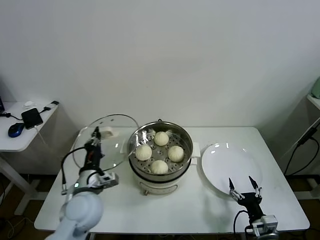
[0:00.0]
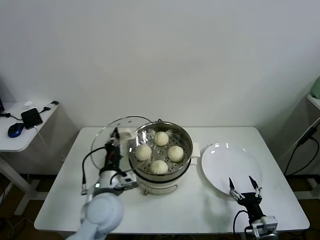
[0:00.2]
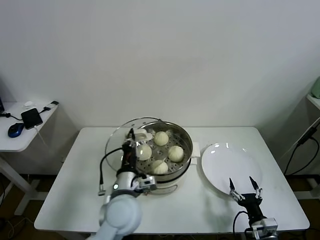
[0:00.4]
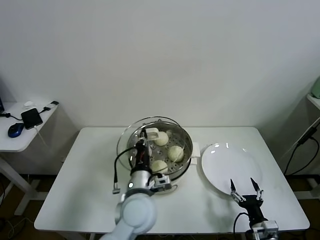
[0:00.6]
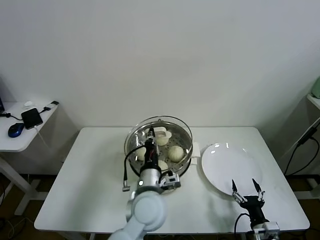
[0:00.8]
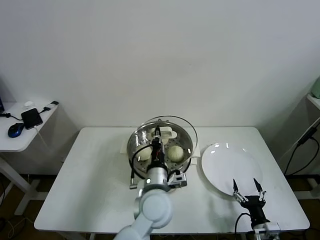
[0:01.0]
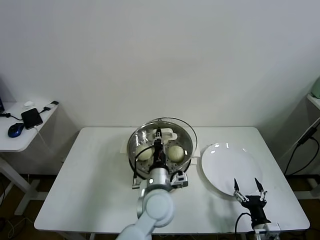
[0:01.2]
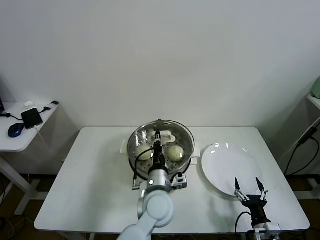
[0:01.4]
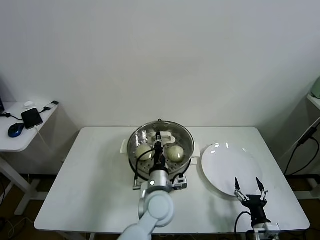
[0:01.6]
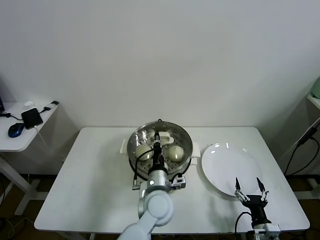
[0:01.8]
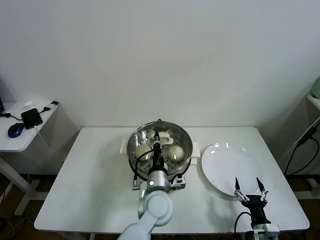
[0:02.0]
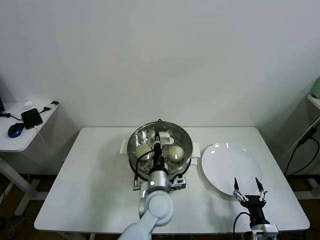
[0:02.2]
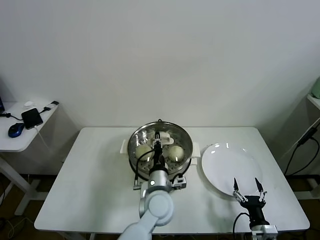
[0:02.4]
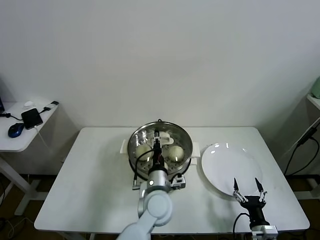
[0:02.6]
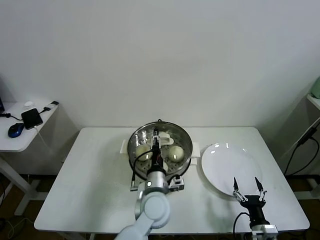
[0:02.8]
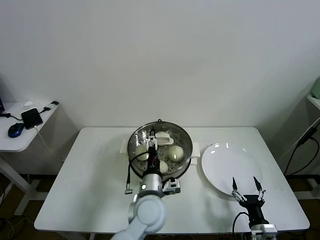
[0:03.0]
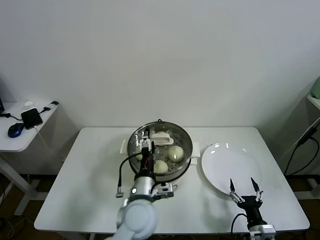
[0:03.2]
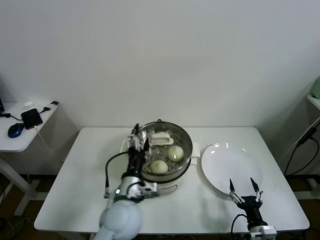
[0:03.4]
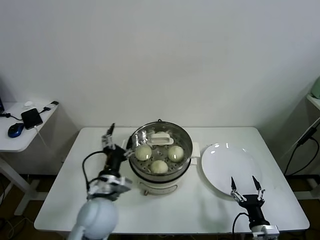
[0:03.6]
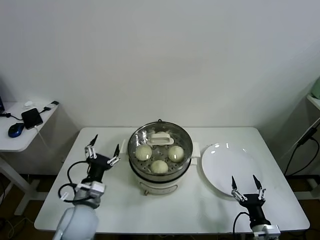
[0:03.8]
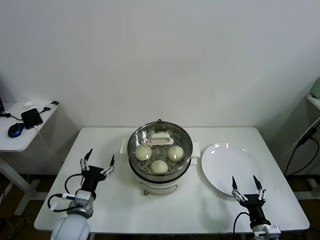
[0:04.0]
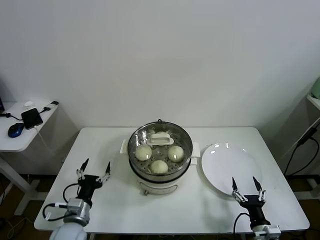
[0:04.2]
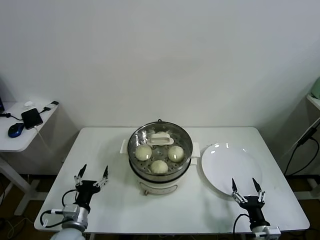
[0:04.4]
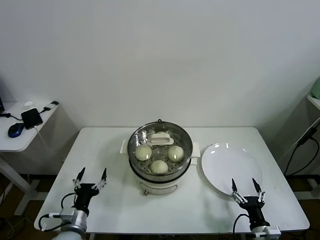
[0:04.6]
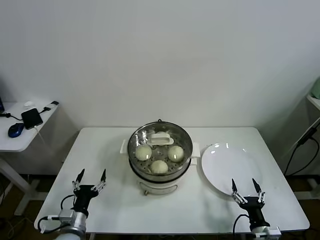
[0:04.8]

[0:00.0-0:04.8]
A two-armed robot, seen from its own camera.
Task of the whole recording: take steamed baozi put them in steamer.
Step, 0:00.0 to 0:03.0: Place the pot lid on the steamer with left gripper.
0:00.0 to 0:01.6: The left gripper is displaced to the right by about 20 cm.
0:01.6 to 0:03.2: The left gripper opens its fingers.
0:03.2 to 0:04.8: The left gripper shifts roughly 25 cm to the left and downward.

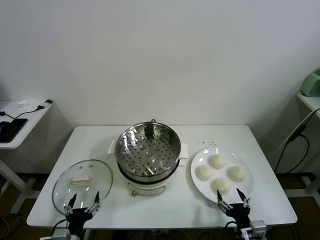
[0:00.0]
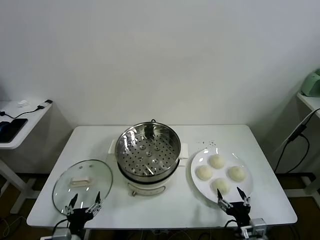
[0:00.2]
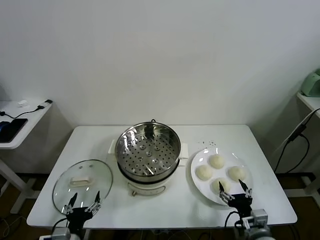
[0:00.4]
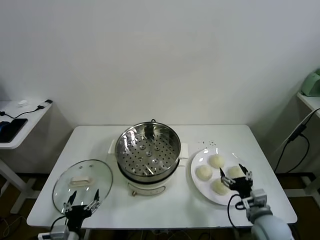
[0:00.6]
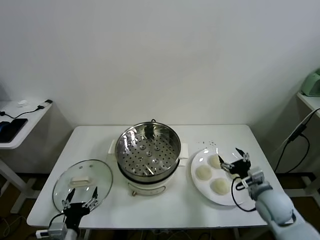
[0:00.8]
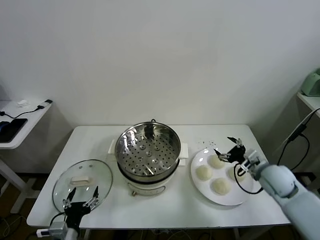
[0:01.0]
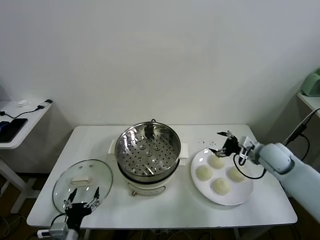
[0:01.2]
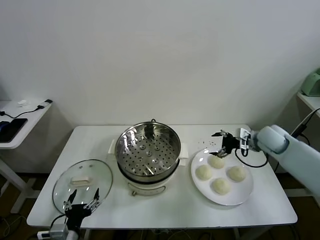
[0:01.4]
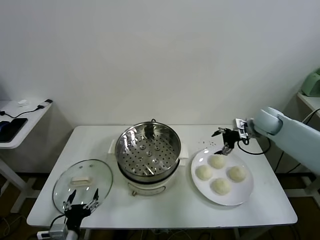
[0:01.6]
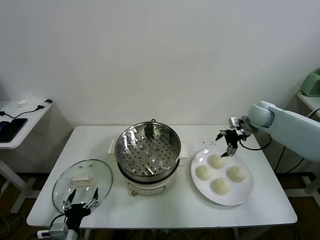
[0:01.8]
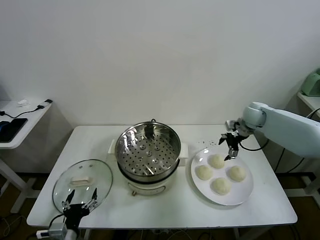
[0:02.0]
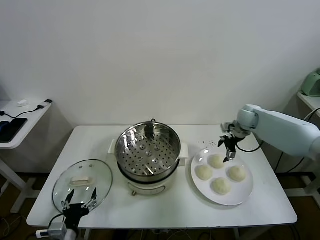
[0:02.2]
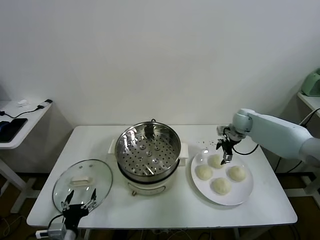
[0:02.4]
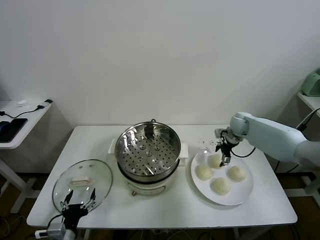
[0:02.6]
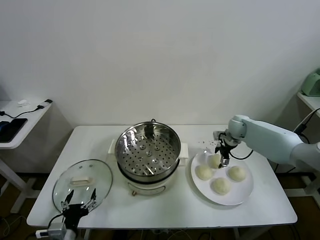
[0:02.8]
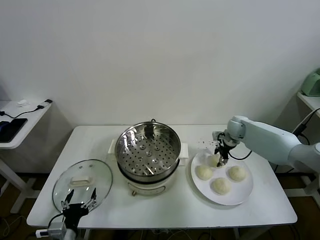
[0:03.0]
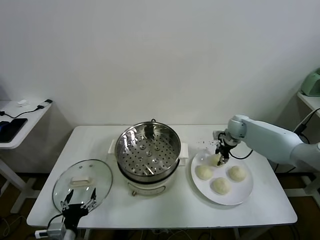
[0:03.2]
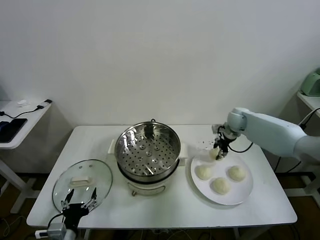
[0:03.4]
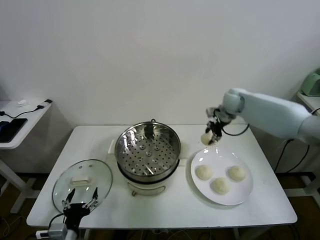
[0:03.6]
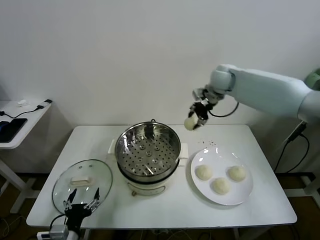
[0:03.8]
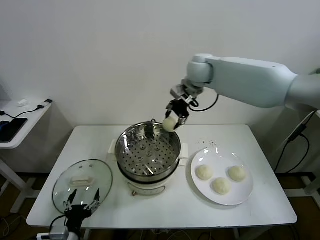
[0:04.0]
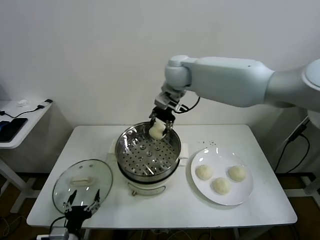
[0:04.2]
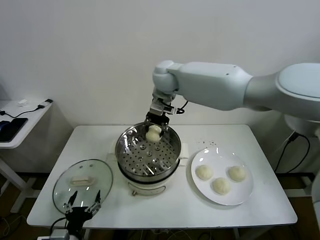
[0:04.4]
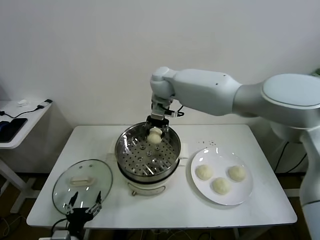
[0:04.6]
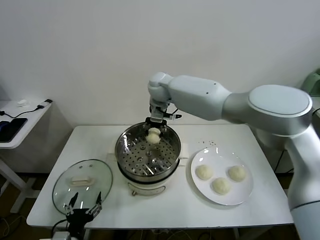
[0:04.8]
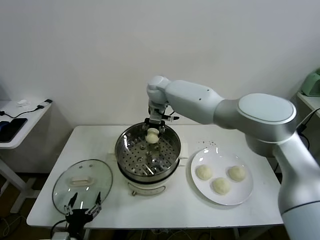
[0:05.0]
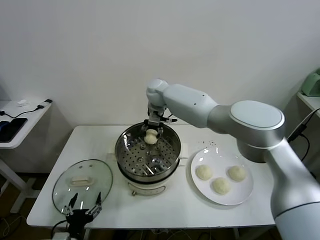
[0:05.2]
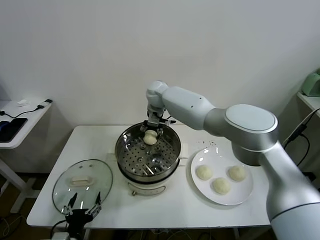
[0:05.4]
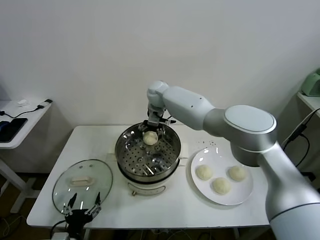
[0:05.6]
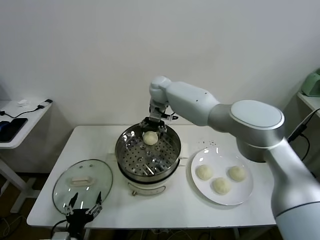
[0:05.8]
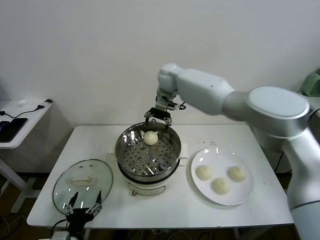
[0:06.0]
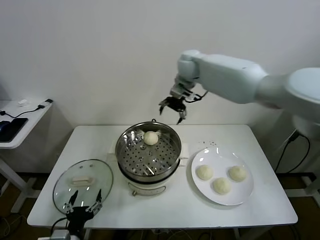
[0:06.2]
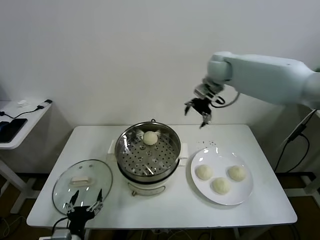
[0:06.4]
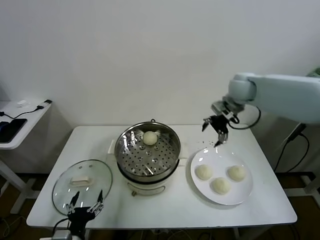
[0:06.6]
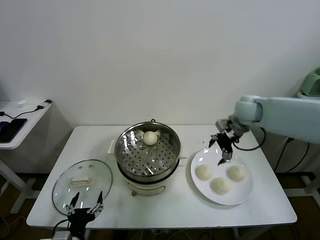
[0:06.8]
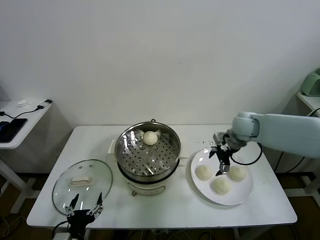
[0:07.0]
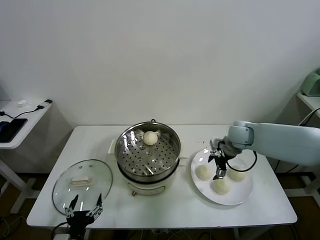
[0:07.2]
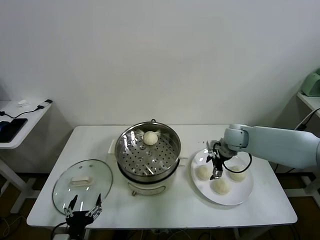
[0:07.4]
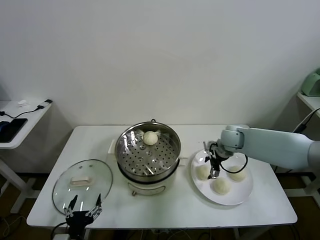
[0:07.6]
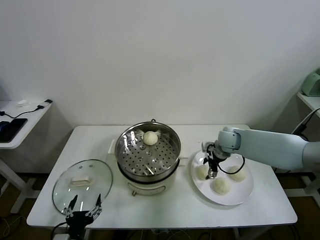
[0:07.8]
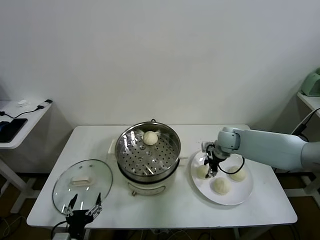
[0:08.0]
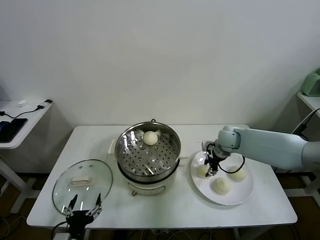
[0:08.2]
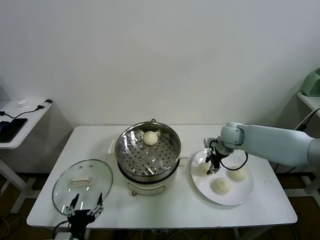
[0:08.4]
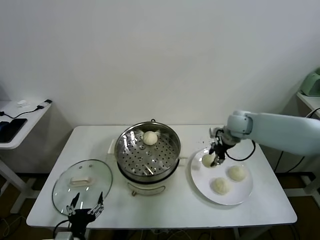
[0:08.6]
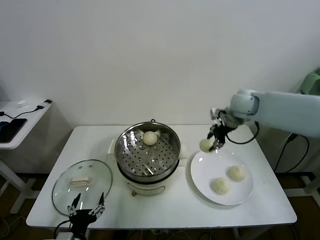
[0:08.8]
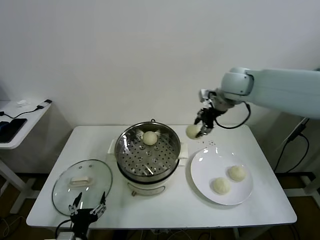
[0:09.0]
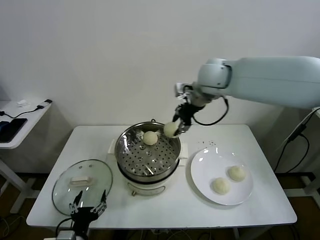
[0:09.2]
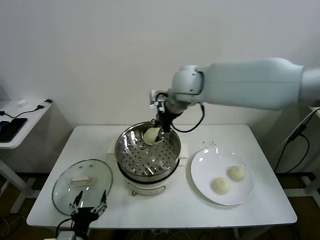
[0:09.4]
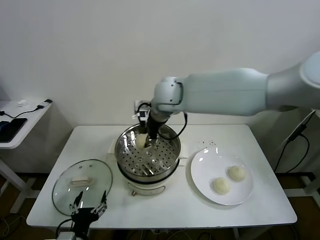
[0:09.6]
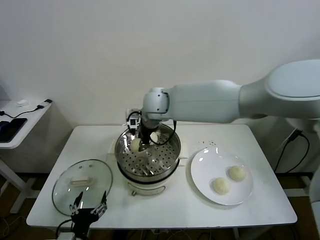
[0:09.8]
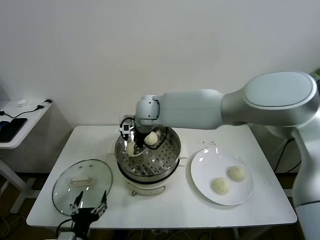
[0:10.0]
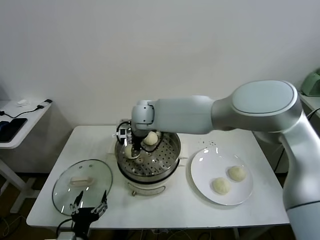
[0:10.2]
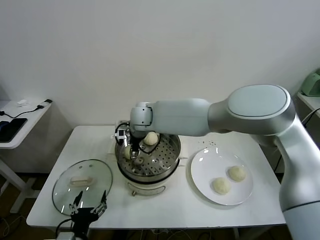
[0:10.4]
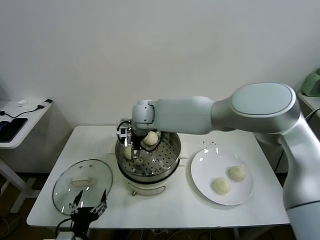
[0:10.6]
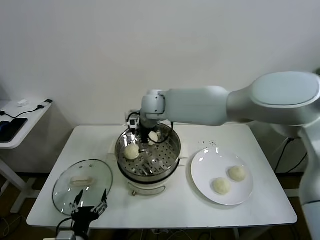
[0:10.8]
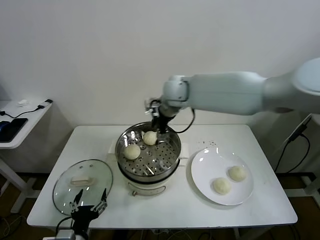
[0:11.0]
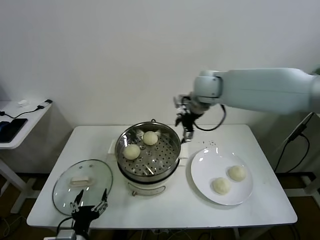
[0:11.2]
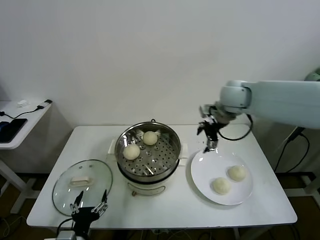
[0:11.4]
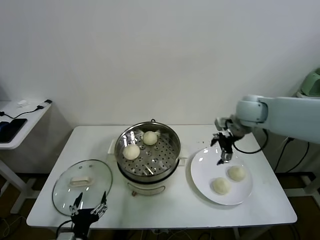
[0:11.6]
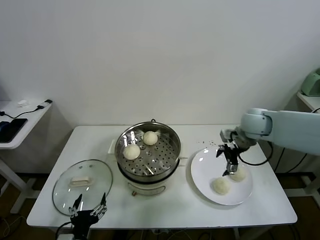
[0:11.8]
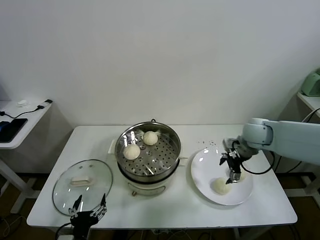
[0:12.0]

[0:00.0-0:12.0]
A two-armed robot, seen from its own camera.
Task of the whole recording: take steamed baozi put them in steamer.
Step, 0:00.0 to 0:02.8: Grasp the baozi in the plate with right gripper.
Step, 0:03.2 to 0:05.4: Place the baozi on the steamer with right gripper.
Step, 0:05.6 to 0:07.8: Grasp the baozi in the plate with right gripper.
Step, 0:08.0 to 0:10.4: Place the baozi on the steamer with right gripper.
0:01.6 to 0:03.0: The right gripper heads downward, covering approximately 10 cm, and closes.
0:03.0 to 0:04.4: The right gripper is displaced to the left and upward by roughly 40 cm.
0:04.4 to 0:06.0: The right gripper heads to the right and forward, covering some 10 cm, reaches approximately 10 cm downward, then returns, and opens up.
0:06.0 to 0:07.6: The right gripper heads downward, to the right and backward, covering about 35 cm.
0:07.6 to 0:09.0: The right gripper heads upward, covering roughly 25 cm, and closes.
0:09.0 to 0:10.4: The right gripper heads to the left and downward, covering roughly 30 cm, and opens up.
0:10.4 to 0:12.0: The right gripper heads to the right, covering roughly 40 cm.

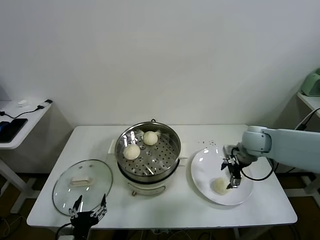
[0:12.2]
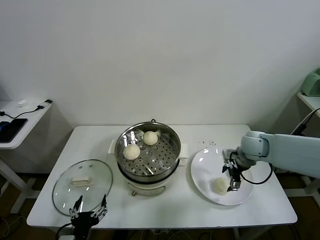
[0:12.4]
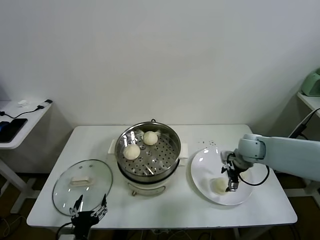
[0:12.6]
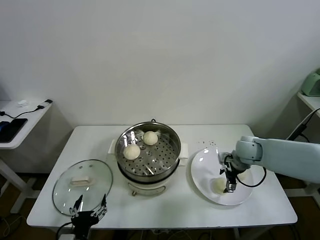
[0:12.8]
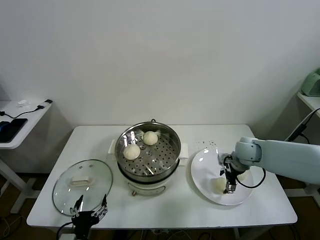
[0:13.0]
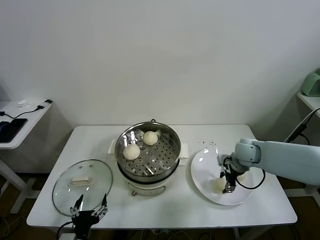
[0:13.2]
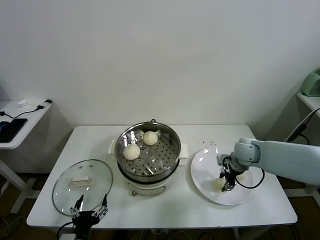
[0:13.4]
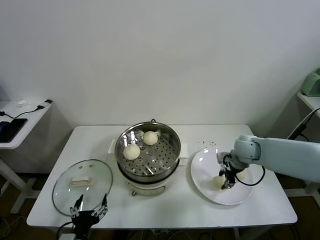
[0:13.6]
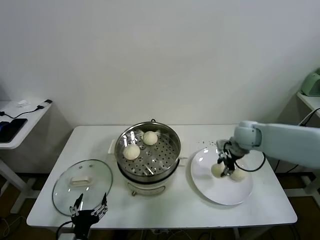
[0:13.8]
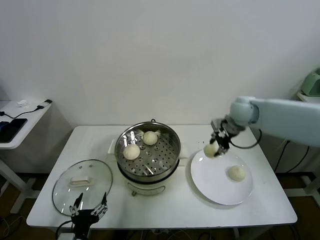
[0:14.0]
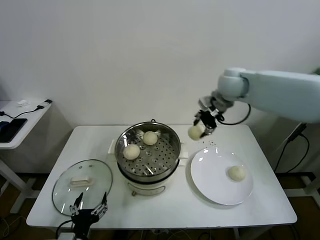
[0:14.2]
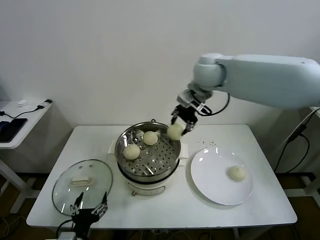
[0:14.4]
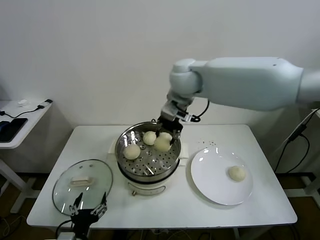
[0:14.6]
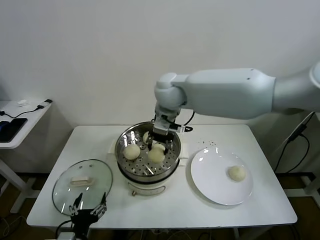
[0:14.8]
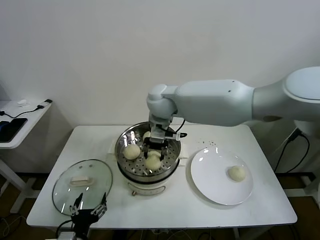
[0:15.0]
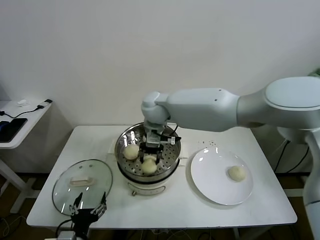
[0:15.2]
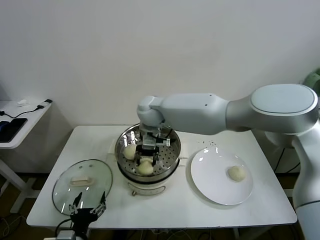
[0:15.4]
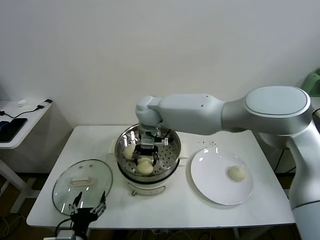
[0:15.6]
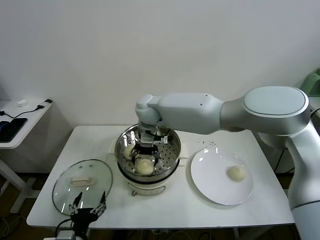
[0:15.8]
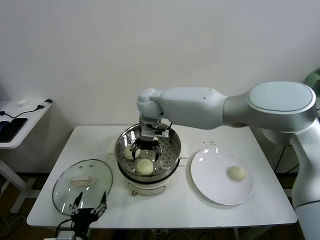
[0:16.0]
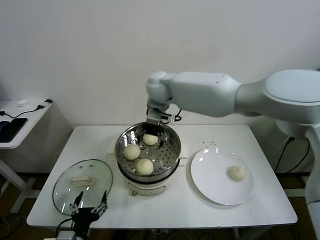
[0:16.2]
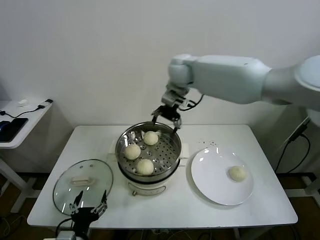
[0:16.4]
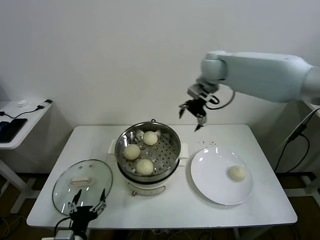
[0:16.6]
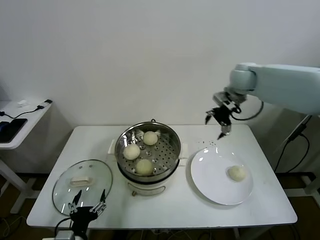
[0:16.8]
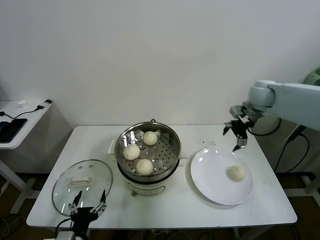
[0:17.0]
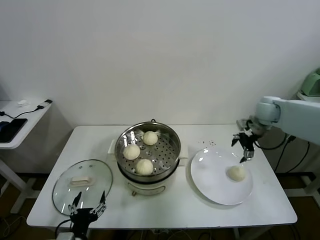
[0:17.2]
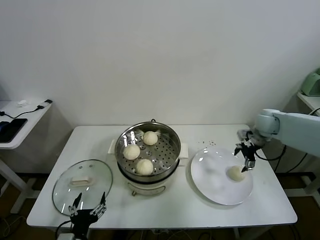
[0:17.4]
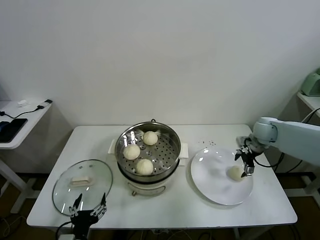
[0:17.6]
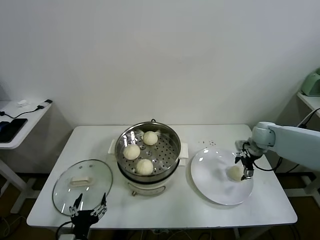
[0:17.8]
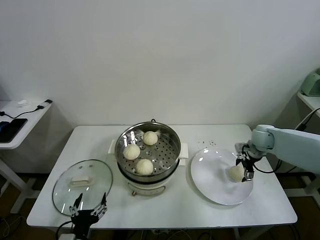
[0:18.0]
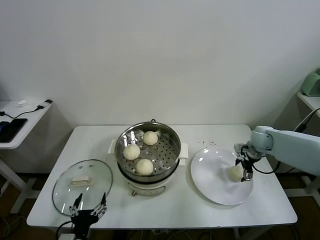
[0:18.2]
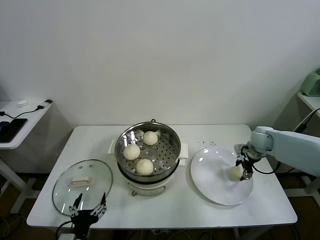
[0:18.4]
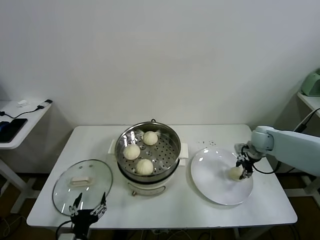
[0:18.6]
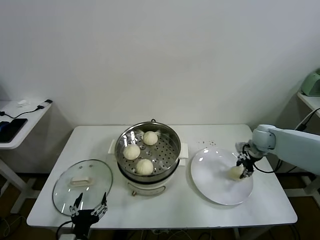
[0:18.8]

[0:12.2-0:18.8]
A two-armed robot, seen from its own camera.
Task of the whole recording: take steamed baozi put them in steamer.
Step, 0:13.4 to 0:15.8: Place the baozi on the steamer with right gripper.
Step, 0:16.0 to 0:18.4: Grasp the baozi in the plate with right gripper.
0:12.2 to 0:13.8: The right gripper moves roughly 5 cm, and closes.
0:13.8 to 0:15.4: The right gripper moves to the left, about 35 cm.
0:15.4 to 0:17.2: The right gripper moves to the right, roughly 40 cm, and opens.
0:17.2 to 0:18.8: The right gripper heads downward, covering about 10 cm, and closes.
